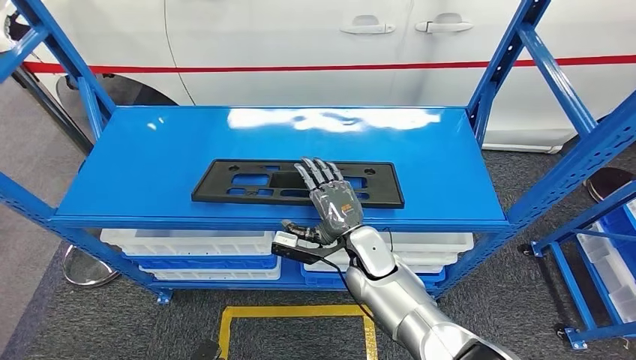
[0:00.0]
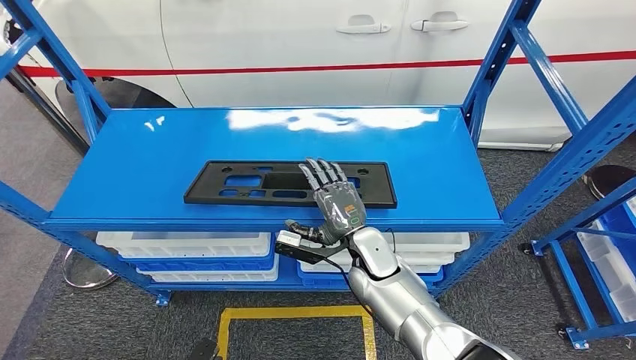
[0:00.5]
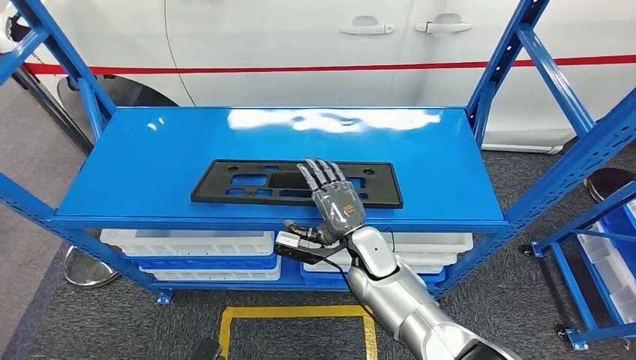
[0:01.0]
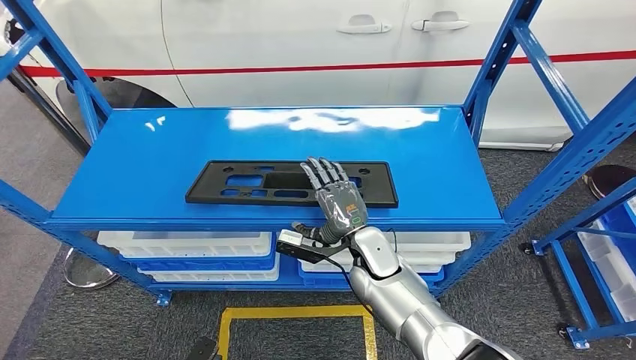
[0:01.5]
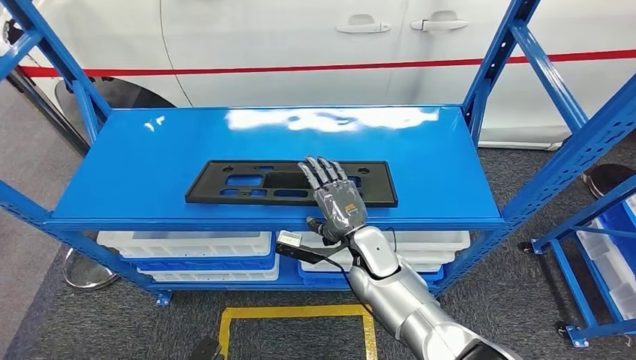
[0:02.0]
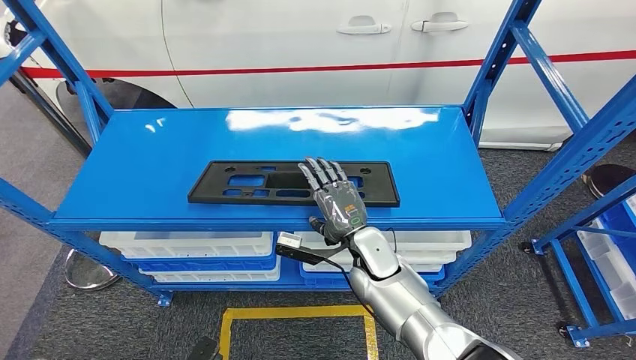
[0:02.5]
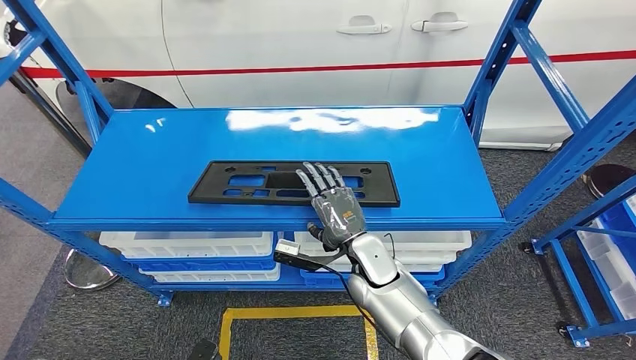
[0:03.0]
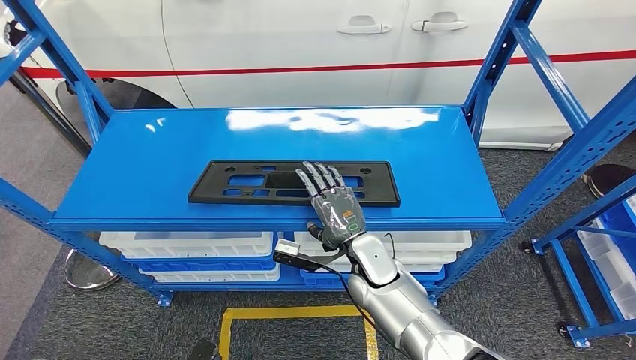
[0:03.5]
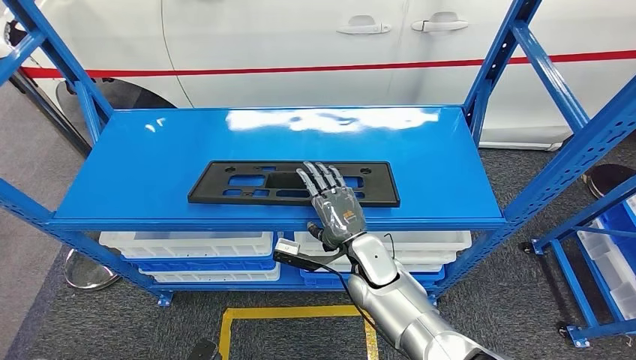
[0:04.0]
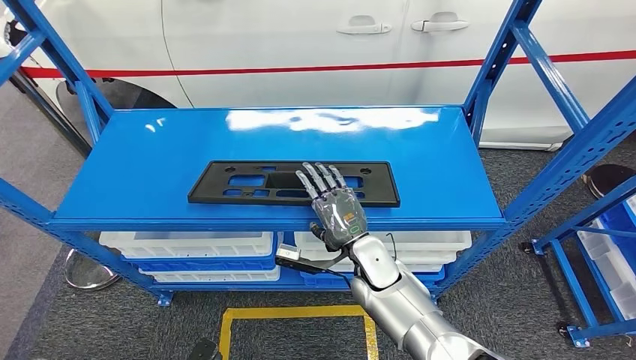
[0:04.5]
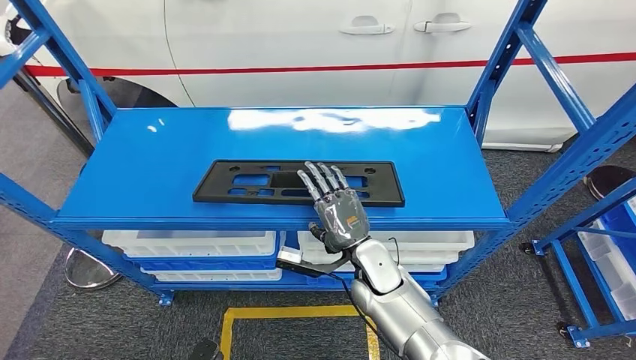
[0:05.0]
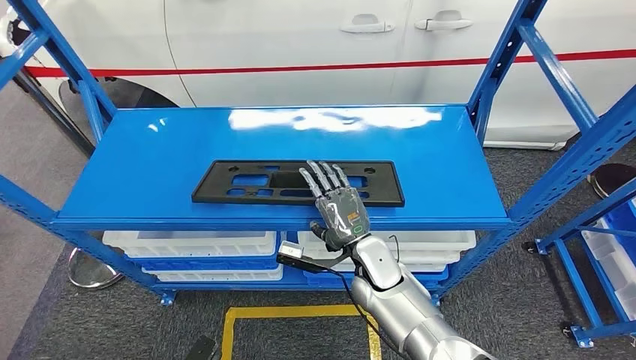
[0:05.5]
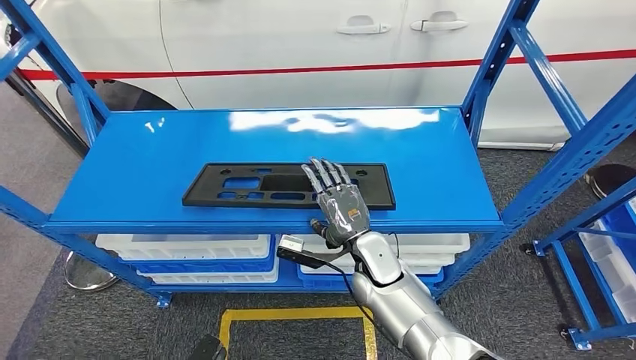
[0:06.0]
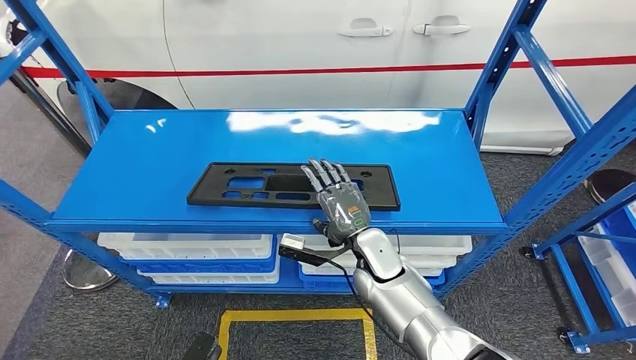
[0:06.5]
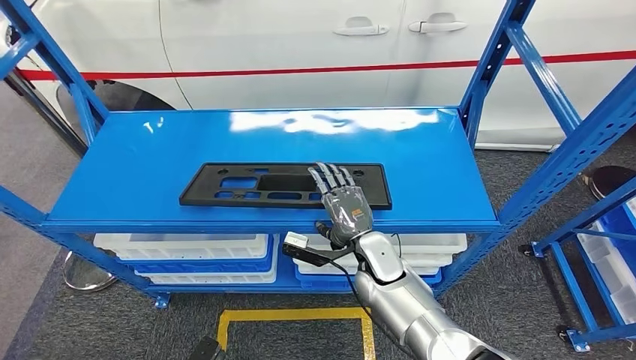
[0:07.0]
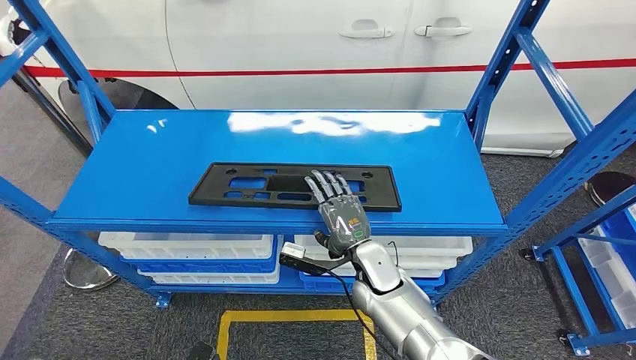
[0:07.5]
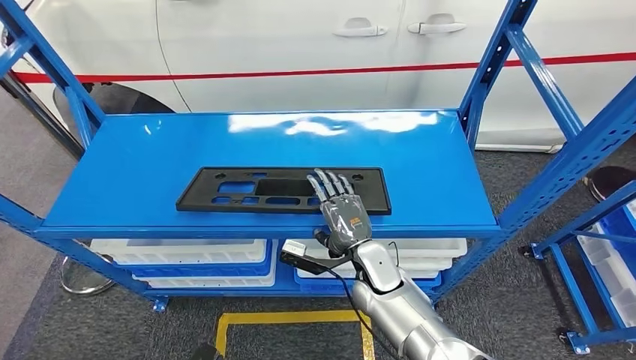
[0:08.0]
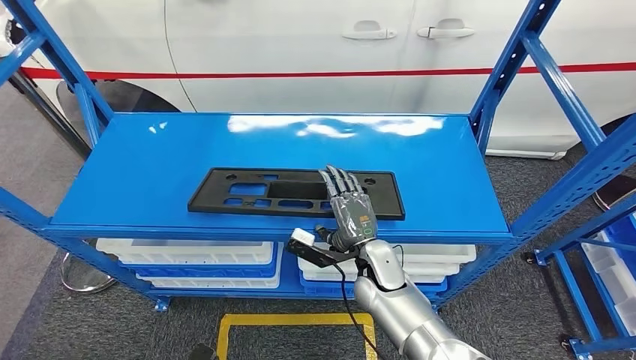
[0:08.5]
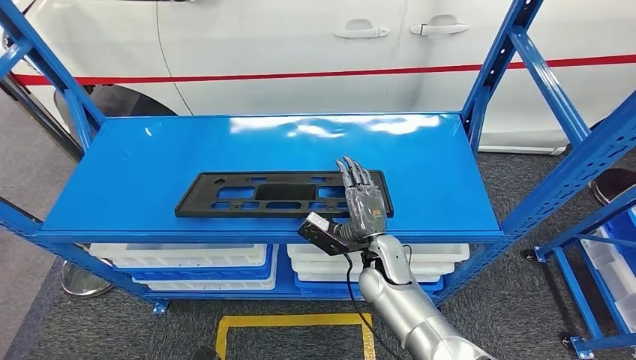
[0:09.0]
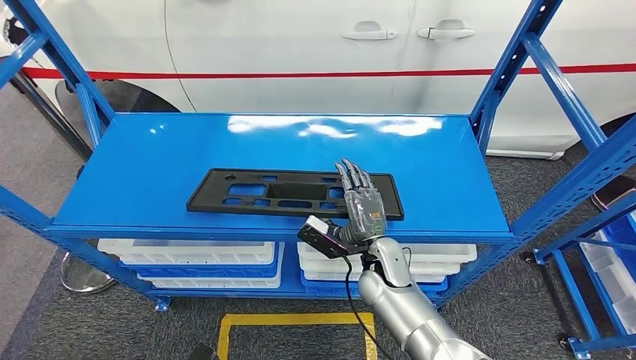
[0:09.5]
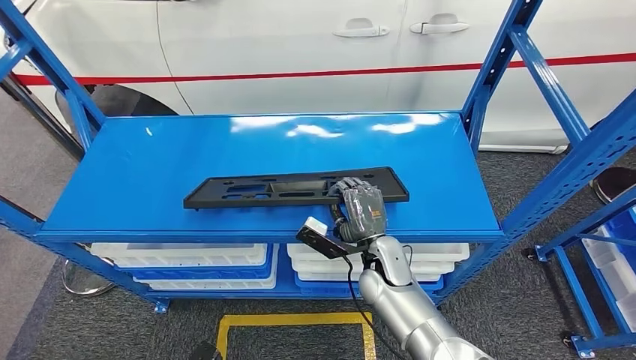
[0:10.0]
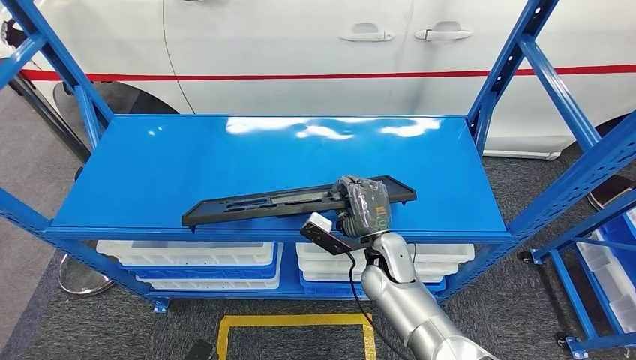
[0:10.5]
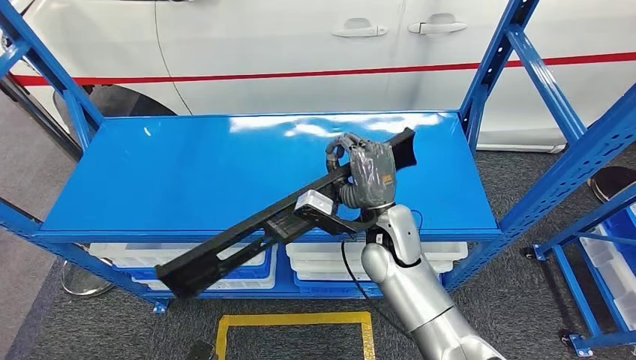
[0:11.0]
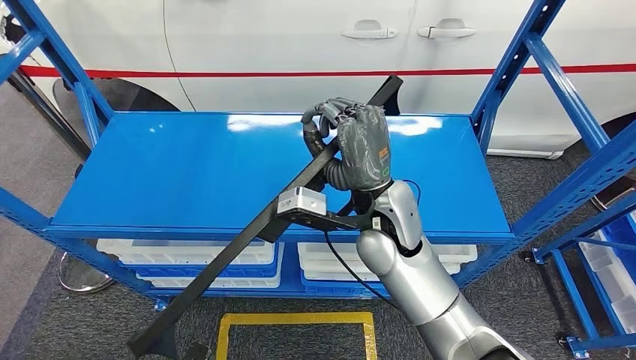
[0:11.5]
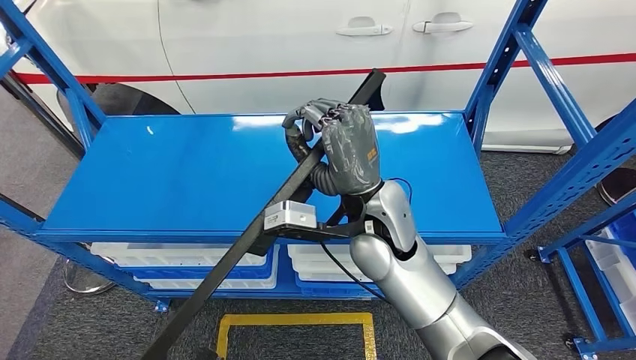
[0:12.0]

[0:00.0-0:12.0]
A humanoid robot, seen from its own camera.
Step, 0:00.0 to 0:11.0: Pick up the large material from the shelf.
0:00.0 to 0:04.0: The two hands keep their place.
0:04.0 to 0:06.0: The hands stay close to where they were, moving slightly.
0:08.0 to 0:10.0: The hands make only small movements.
0:10.0 to 0:12.0: The right hand moves upward, some 20 cm.

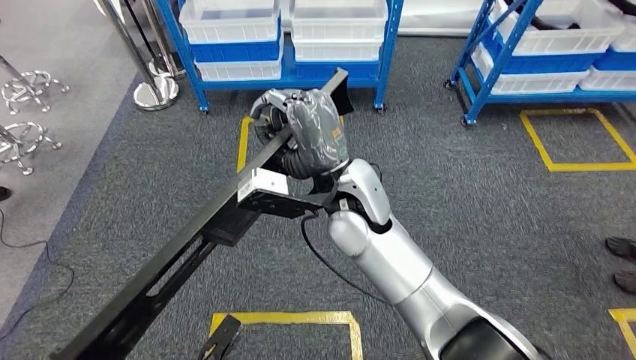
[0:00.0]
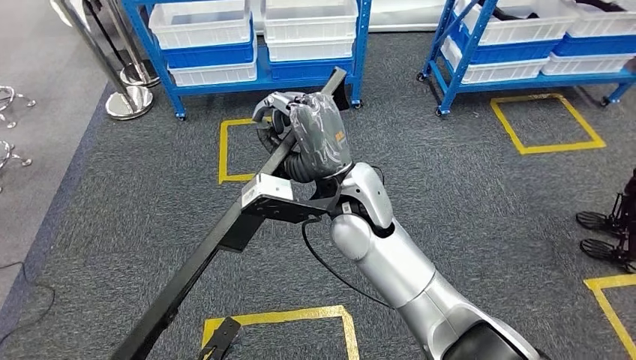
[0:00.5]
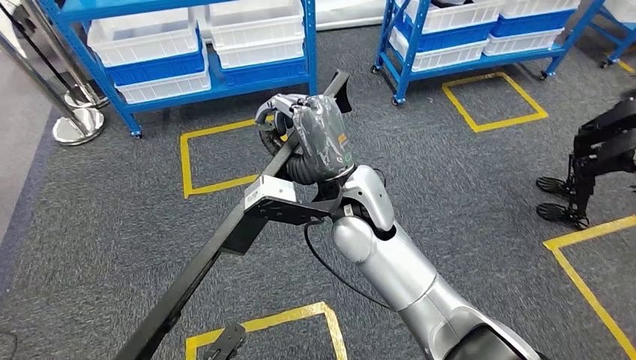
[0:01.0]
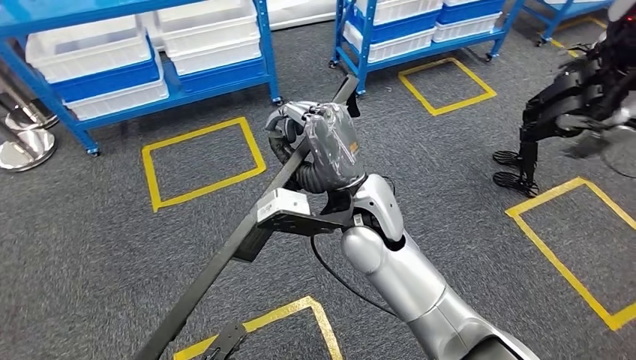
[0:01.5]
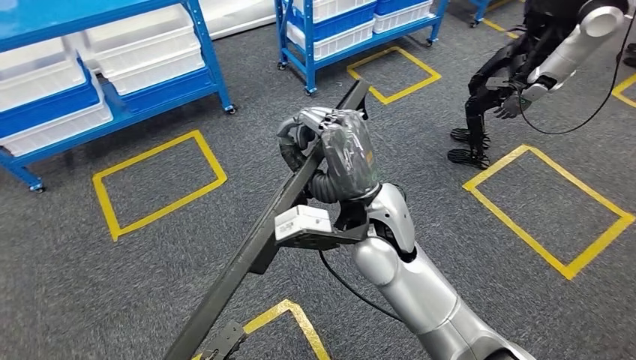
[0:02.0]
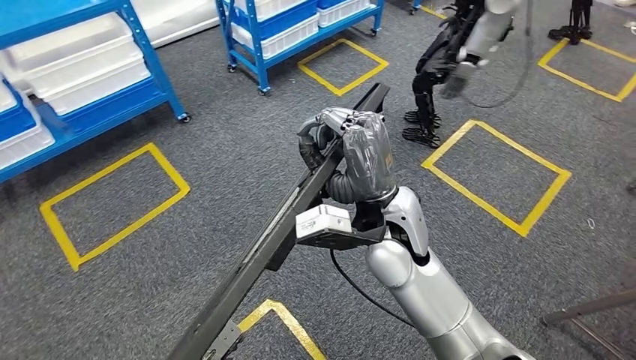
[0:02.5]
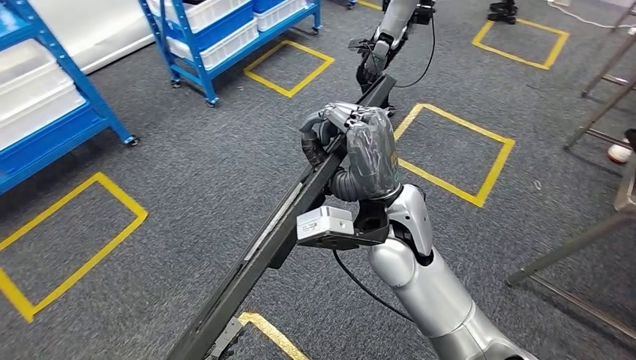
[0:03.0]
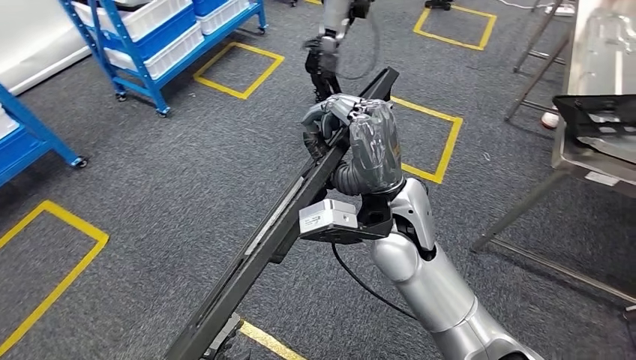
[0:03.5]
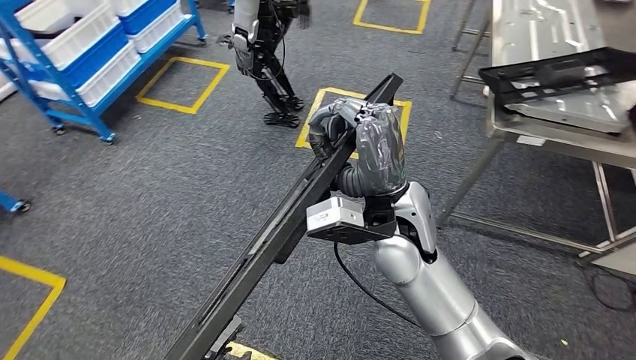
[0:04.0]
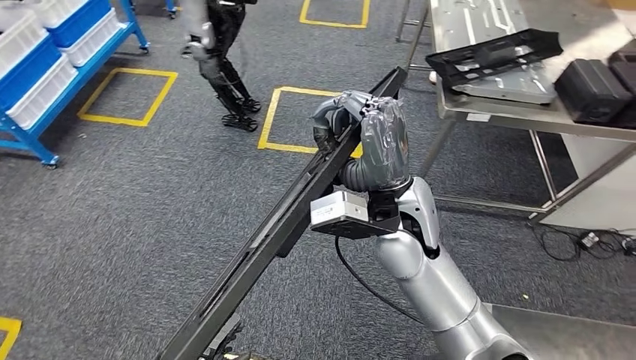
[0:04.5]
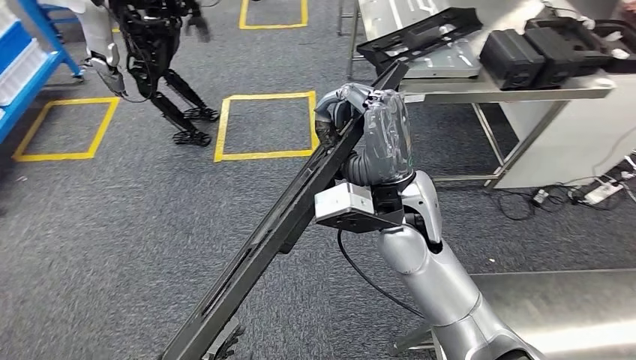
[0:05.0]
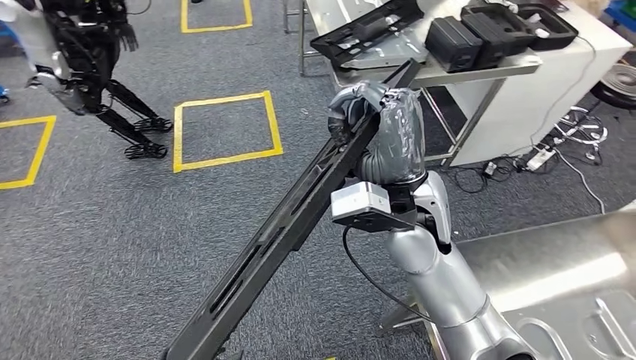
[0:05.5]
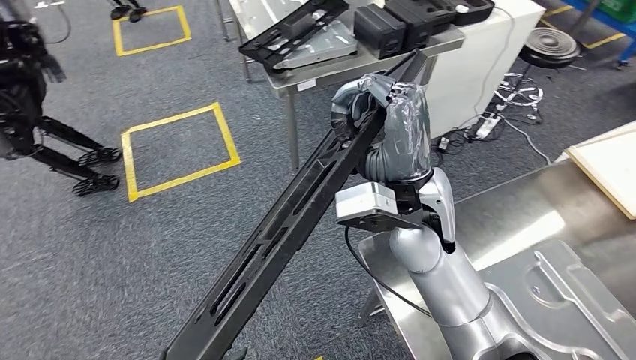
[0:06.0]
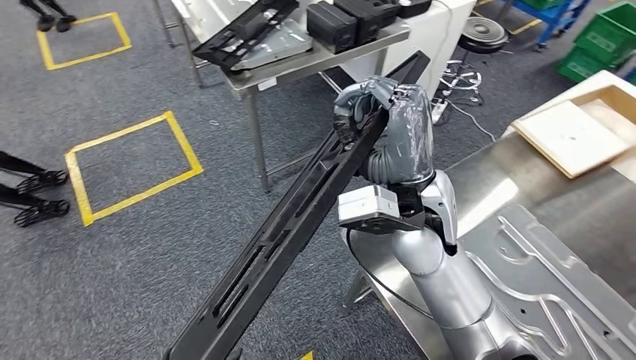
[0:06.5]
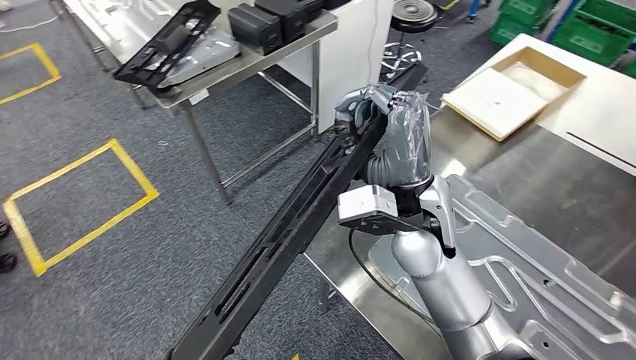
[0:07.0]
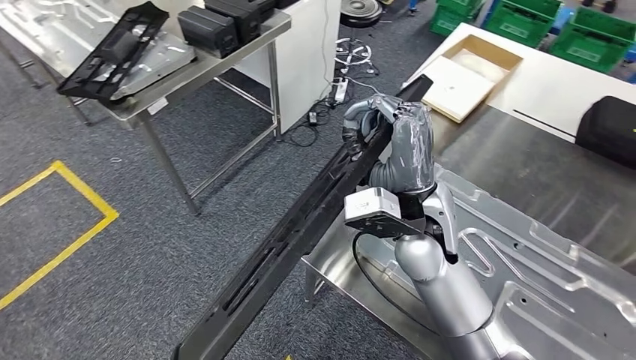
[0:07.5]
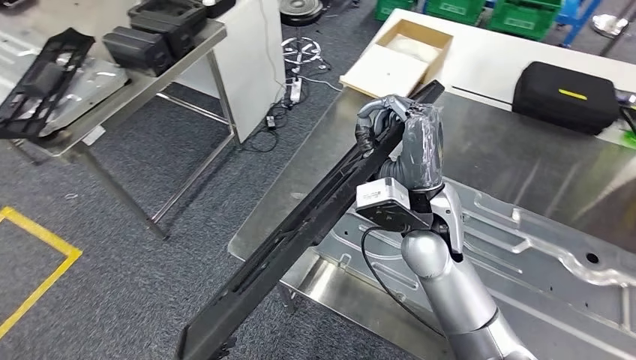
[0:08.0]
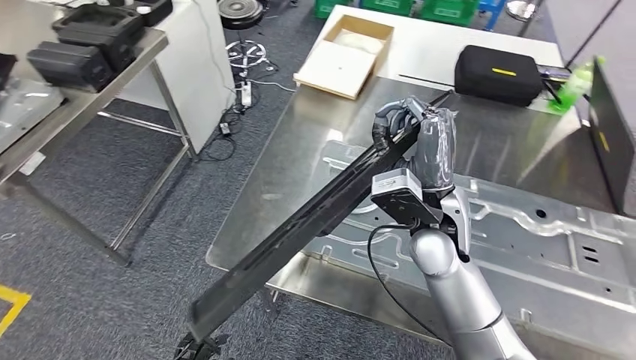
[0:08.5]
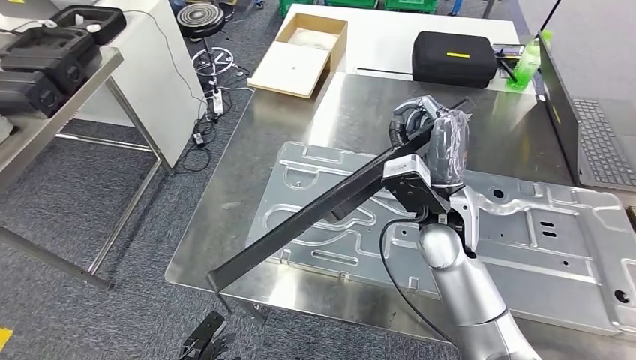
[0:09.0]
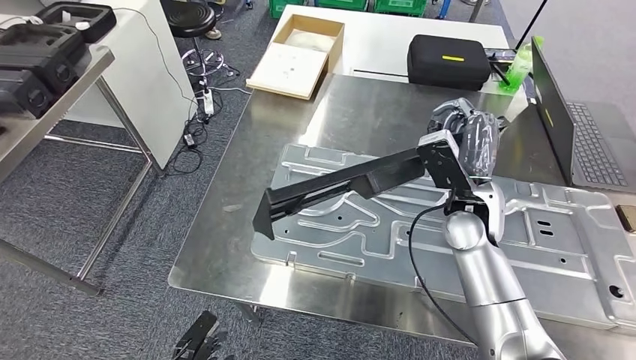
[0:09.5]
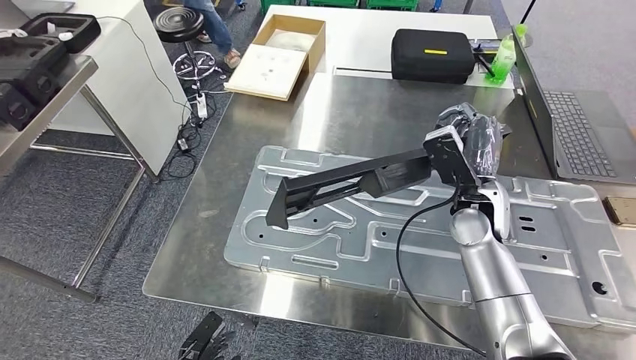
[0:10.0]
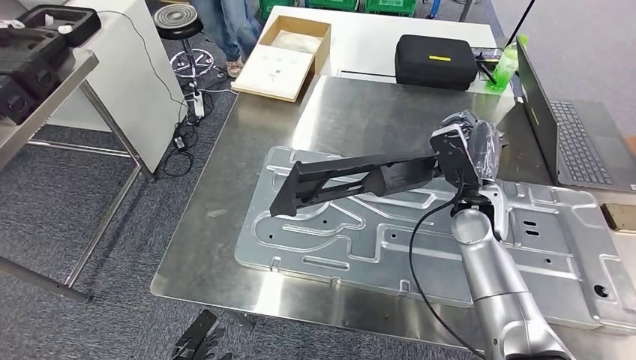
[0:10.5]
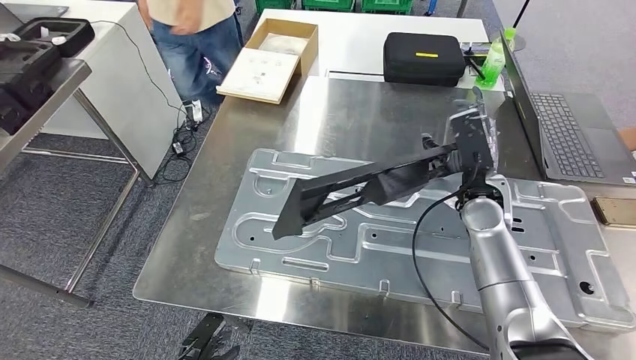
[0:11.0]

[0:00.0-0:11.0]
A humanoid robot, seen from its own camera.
Step, 0:00.0 to 0:04.5: Move the large material to the workbench.
